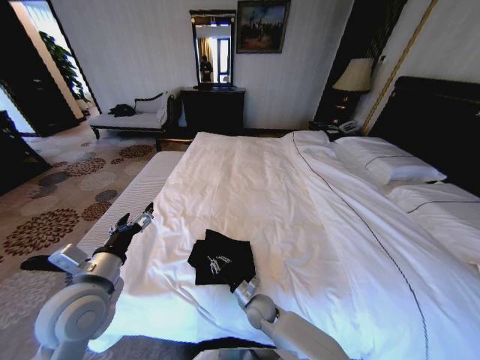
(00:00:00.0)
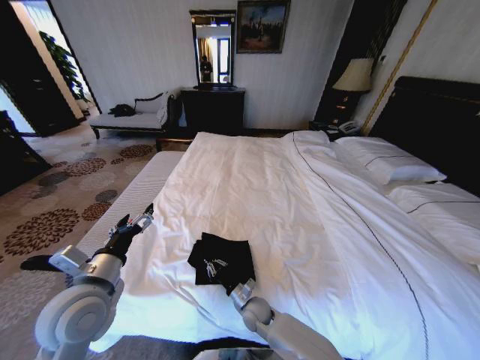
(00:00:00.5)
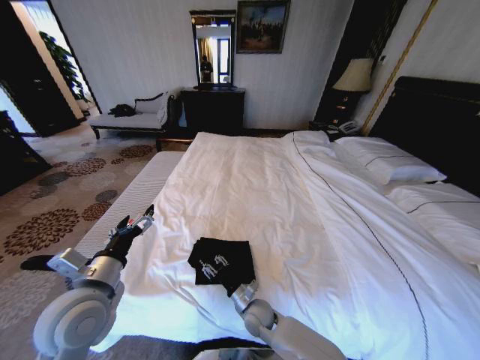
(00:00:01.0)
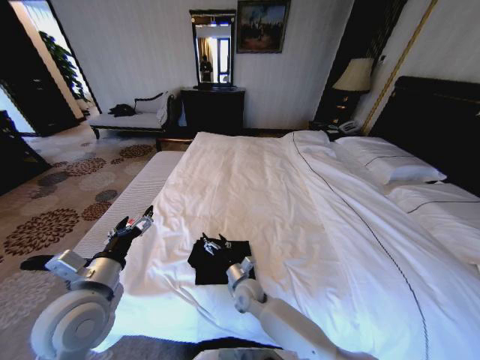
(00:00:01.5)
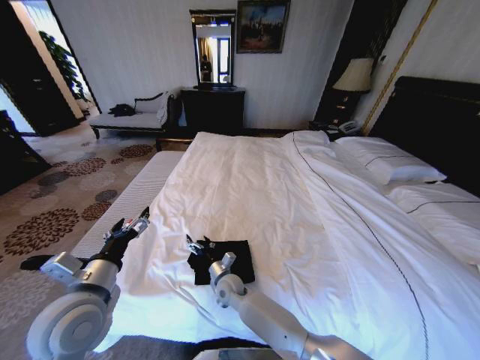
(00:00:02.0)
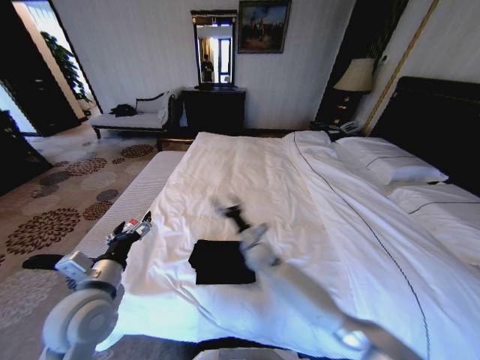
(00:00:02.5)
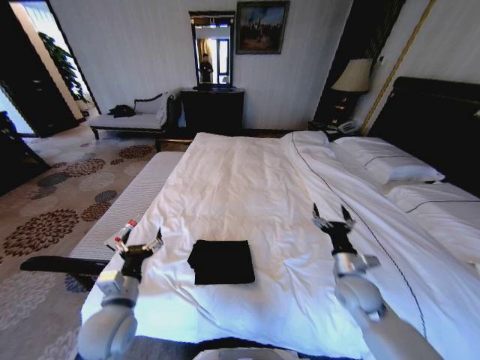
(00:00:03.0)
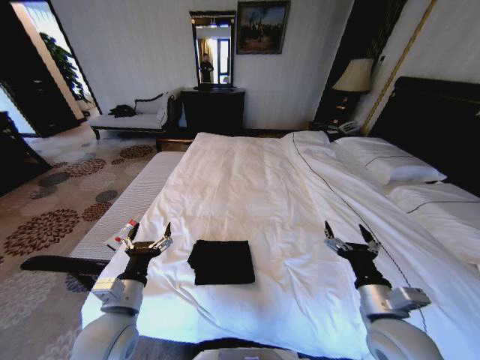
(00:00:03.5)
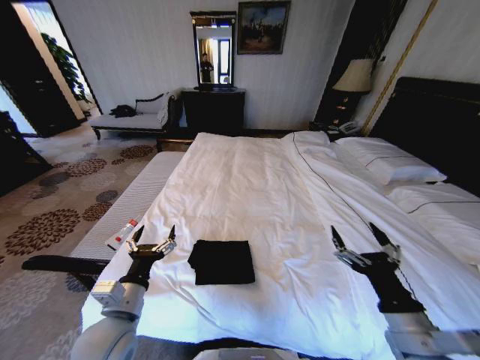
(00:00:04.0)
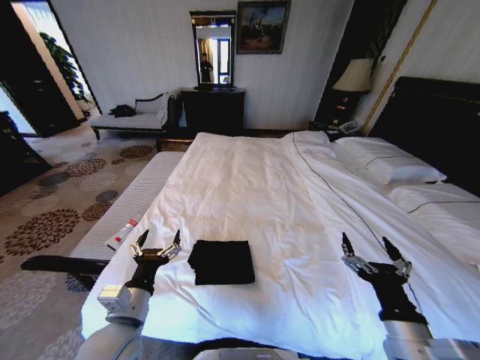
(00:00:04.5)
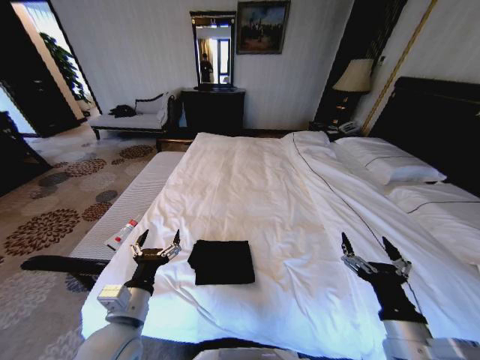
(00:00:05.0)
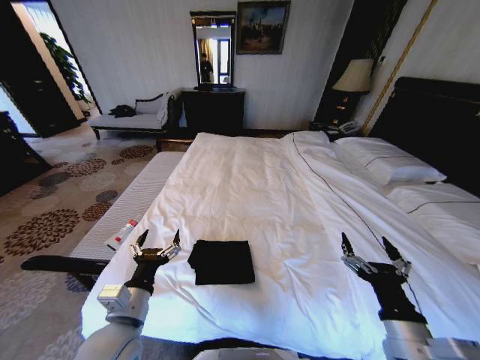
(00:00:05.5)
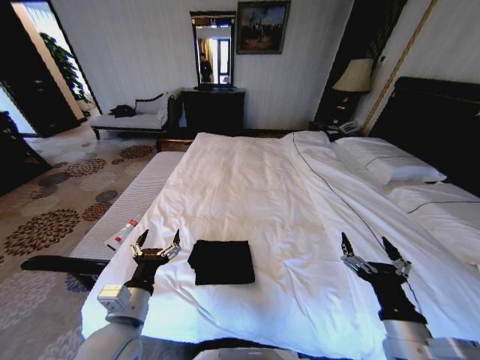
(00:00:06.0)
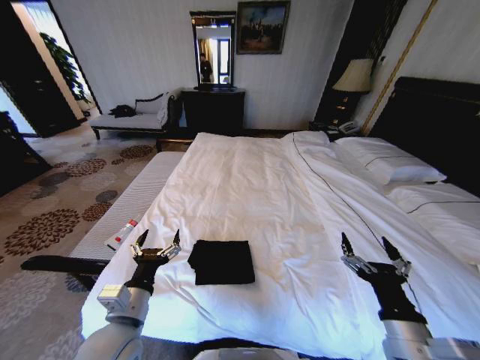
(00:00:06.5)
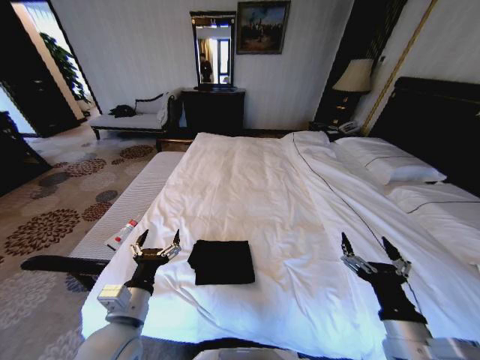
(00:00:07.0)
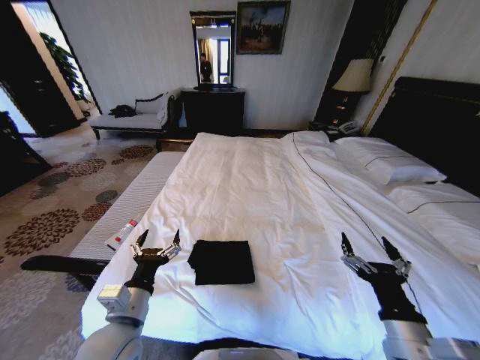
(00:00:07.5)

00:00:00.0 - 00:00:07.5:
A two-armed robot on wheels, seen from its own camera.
Task of the whole recording: Fold the clothes on the bed.
00:00:00.0 - 00:00:02.0: The right gripper is displaced to the left and forward by approximately 10 cm, and opens its fingers.
00:00:02.0 - 00:00:04.0: The left gripper shifts roughly 5 cm downward; the right gripper heads to the right, backward and upward, covering some 50 cm.
00:00:04.0 - 00:00:05.5: The grippers move only a little.
00:00:05.5 - 00:00:07.5: Neither gripper changes place.
